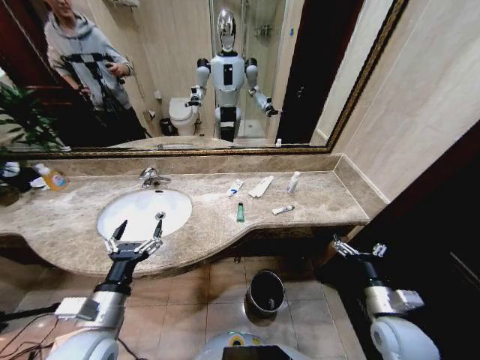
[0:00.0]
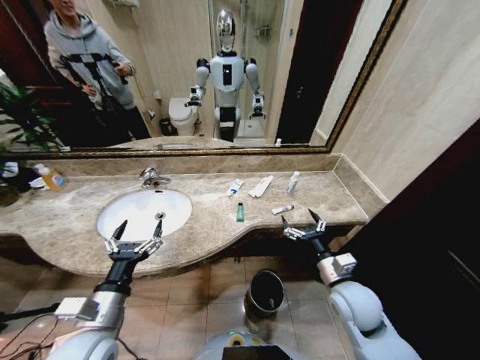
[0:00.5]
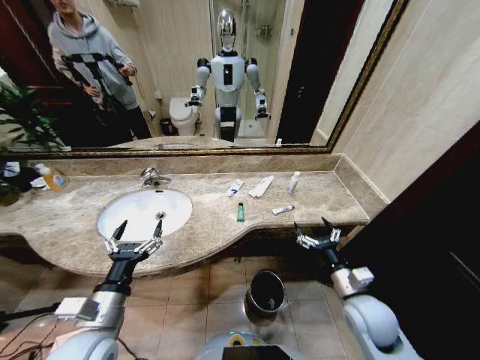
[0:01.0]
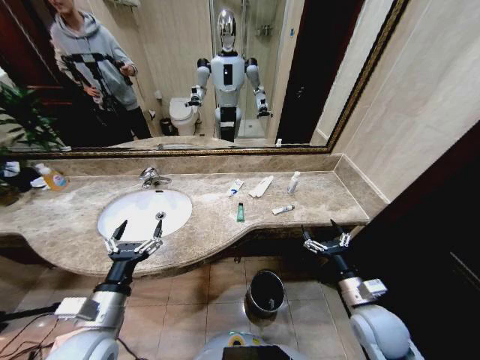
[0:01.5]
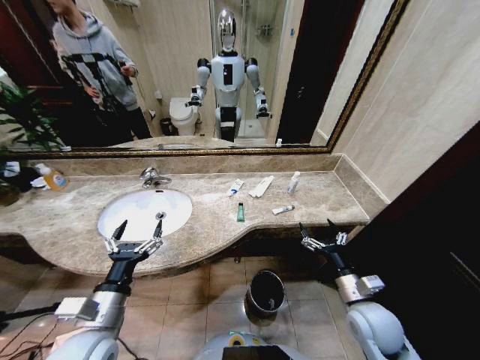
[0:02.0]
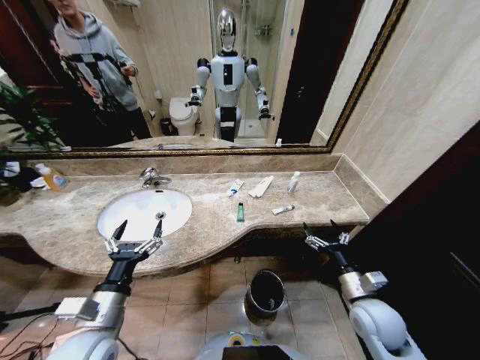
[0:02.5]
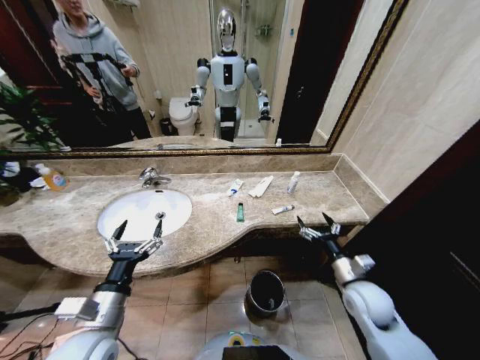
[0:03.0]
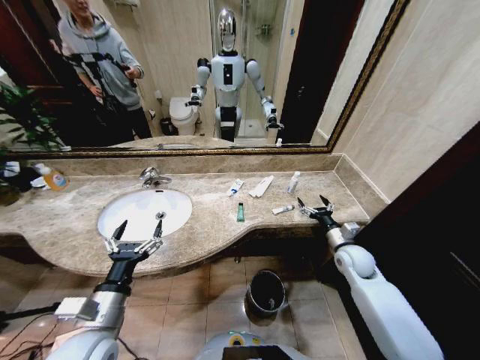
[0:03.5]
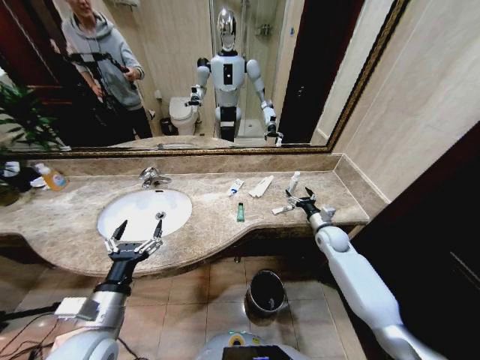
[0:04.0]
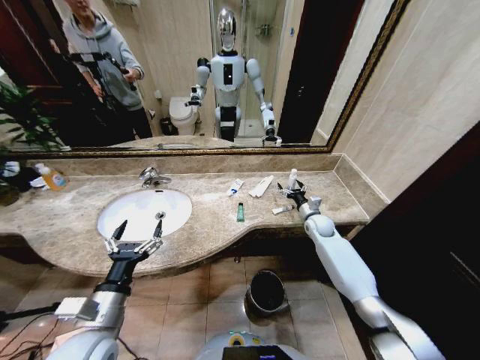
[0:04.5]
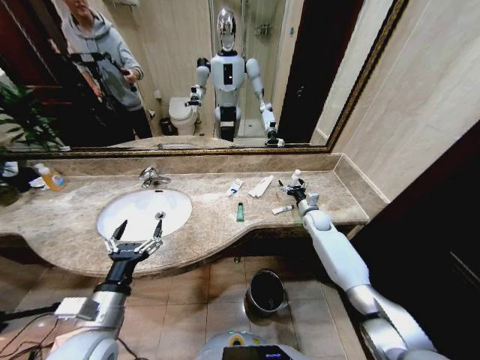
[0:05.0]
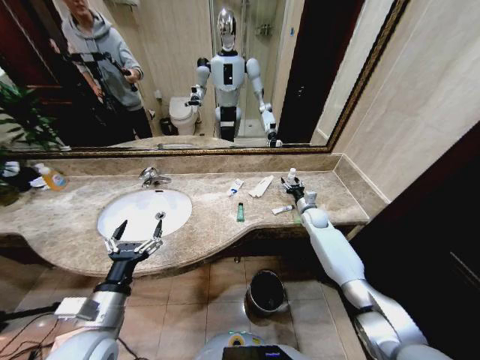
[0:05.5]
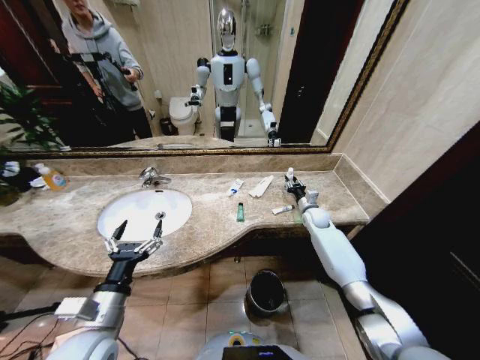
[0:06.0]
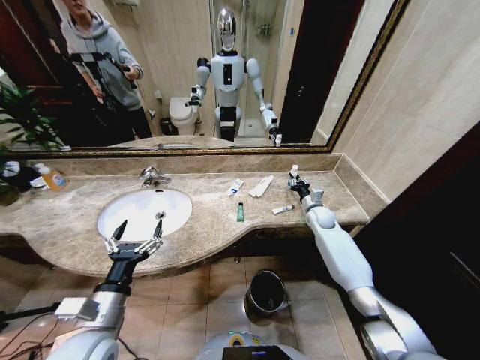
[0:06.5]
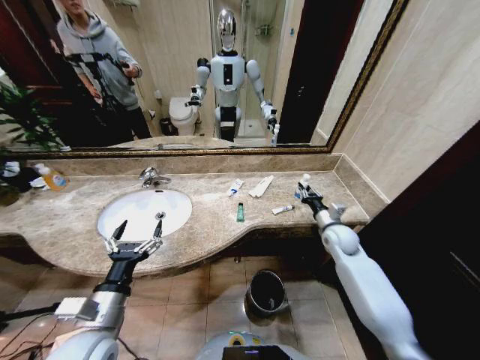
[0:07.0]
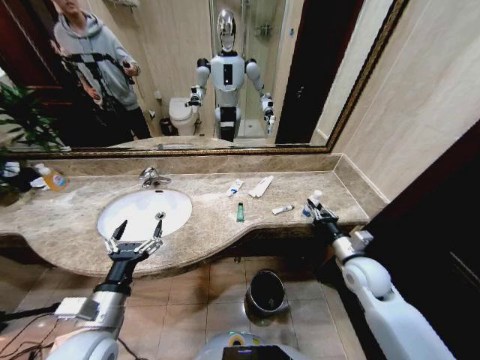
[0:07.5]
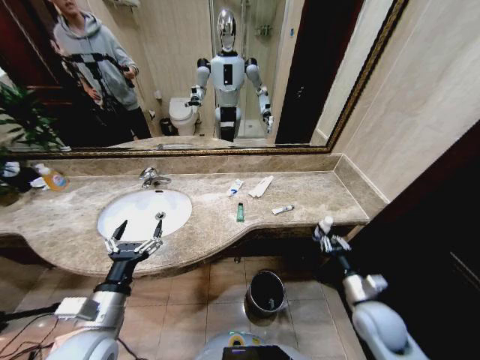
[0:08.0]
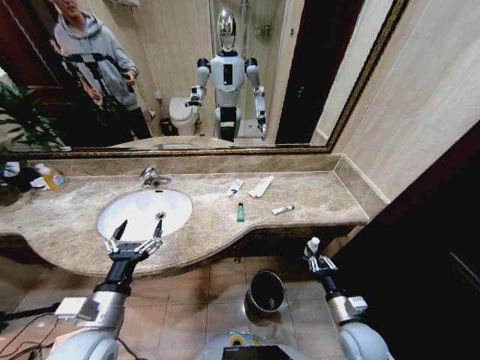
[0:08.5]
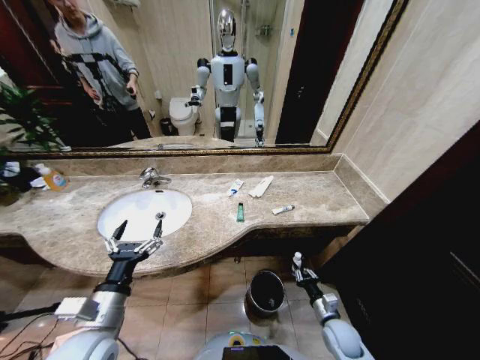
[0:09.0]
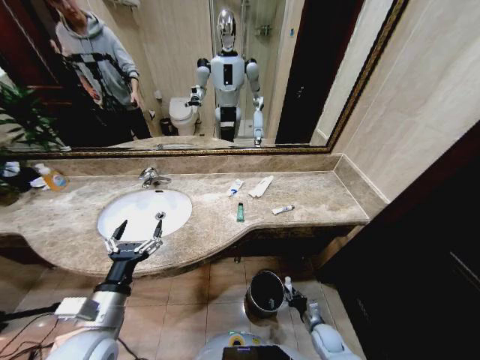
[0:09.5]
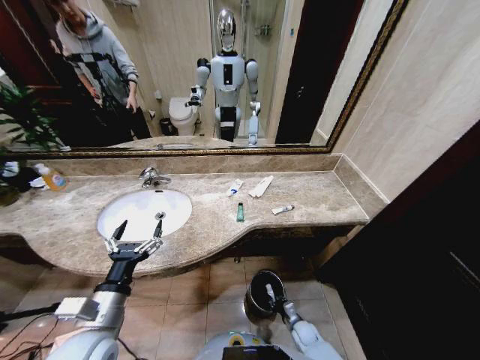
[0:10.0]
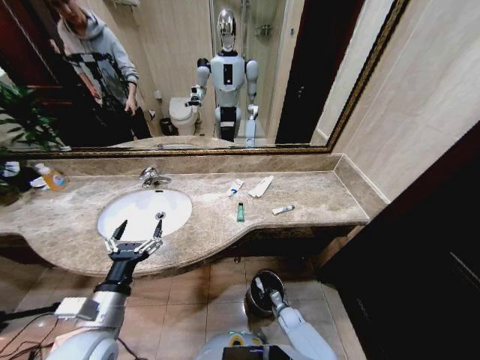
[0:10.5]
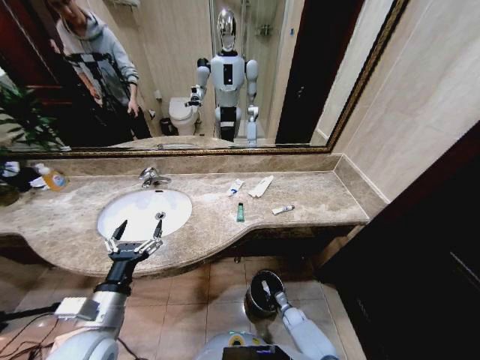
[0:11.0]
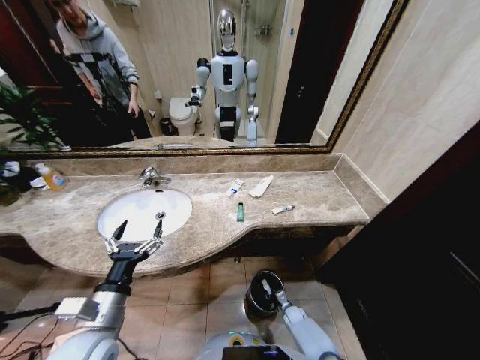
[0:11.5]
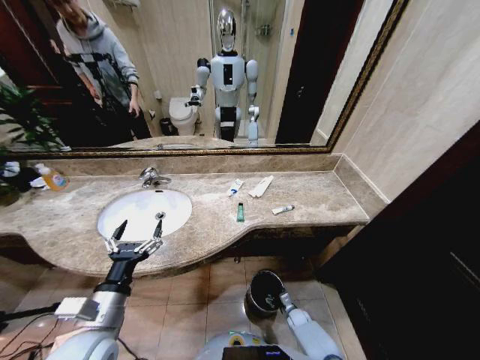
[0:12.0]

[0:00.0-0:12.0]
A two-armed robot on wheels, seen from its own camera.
Task of the whole recording: Pick up the trash from the sink and place it in the trash bin.
0:02.0 to 0:04.0: The right gripper heads forward, covering some 25 cm.
0:04.0 to 0:06.0: The right gripper travels forward by roughly 10 cm, and closes up.
0:06.0 to 0:08.0: The right gripper heads backward, covering approximately 35 cm.
0:08.0 to 0:10.0: The right gripper is displaced downward by some 30 cm.
0:10.0 to 0:12.0: The right gripper changes place by approximately 5 cm, and opens.

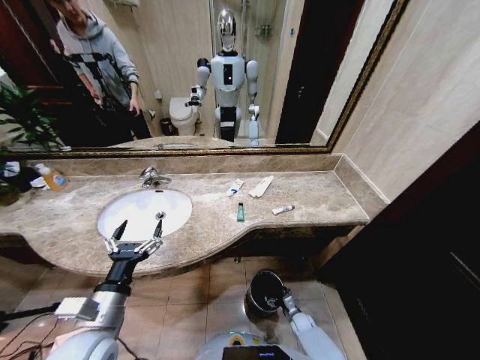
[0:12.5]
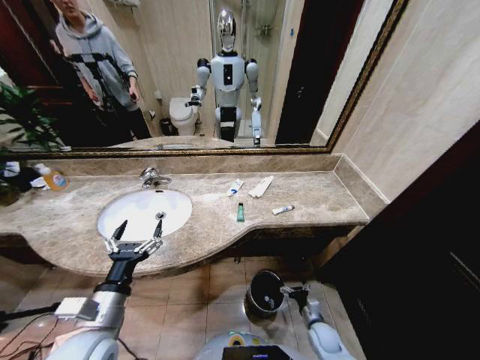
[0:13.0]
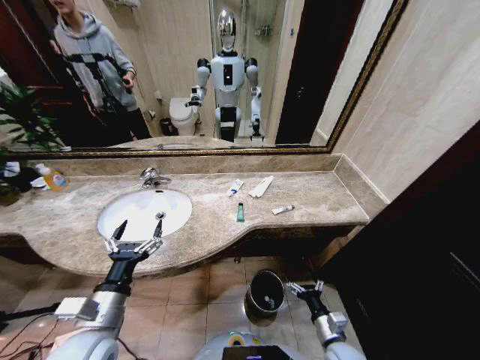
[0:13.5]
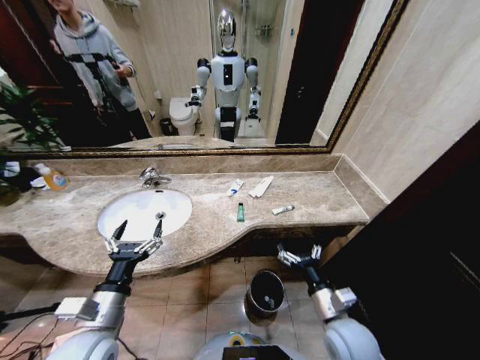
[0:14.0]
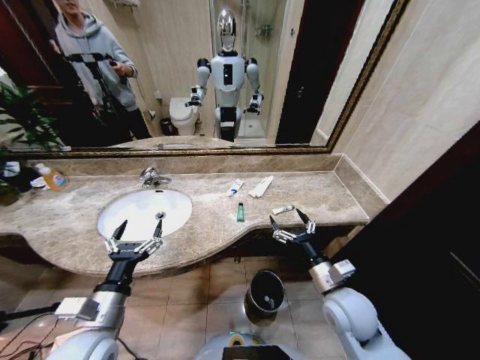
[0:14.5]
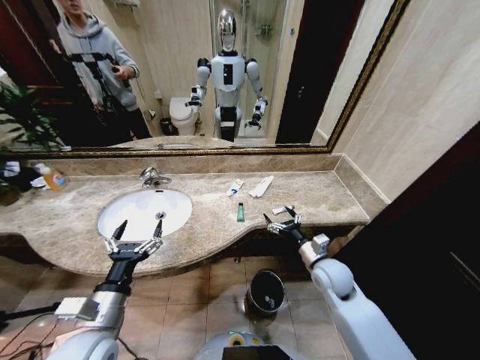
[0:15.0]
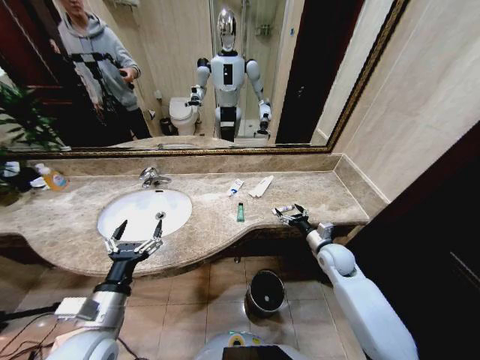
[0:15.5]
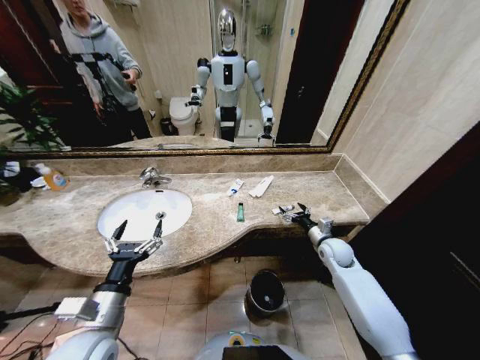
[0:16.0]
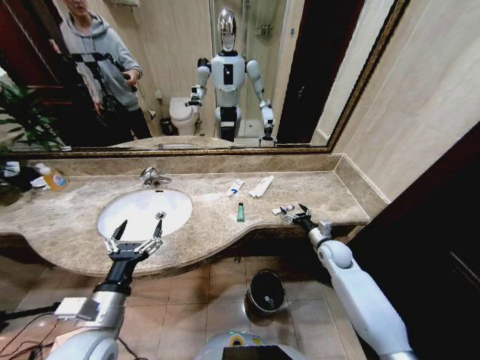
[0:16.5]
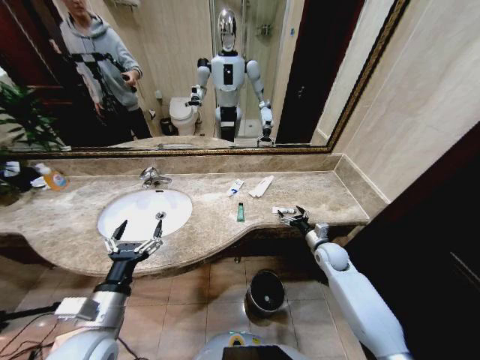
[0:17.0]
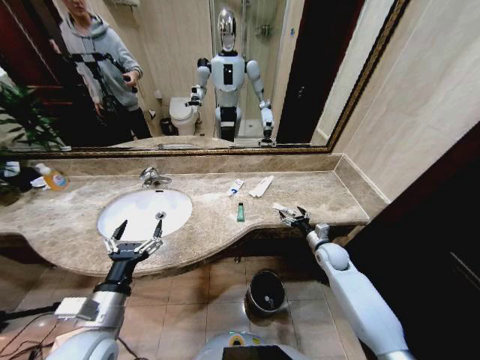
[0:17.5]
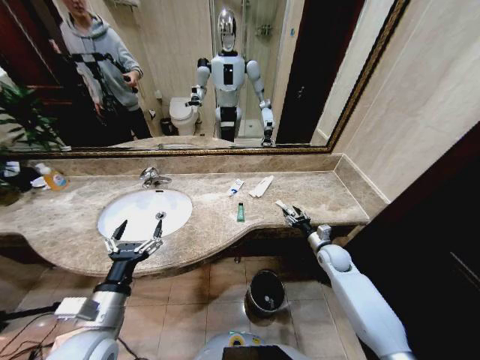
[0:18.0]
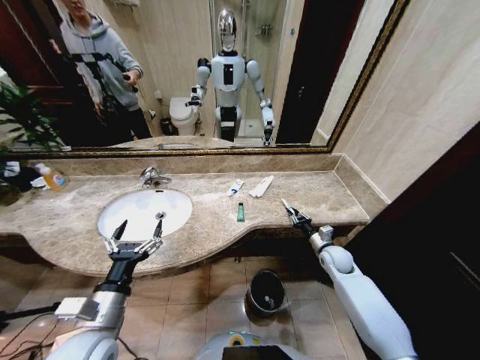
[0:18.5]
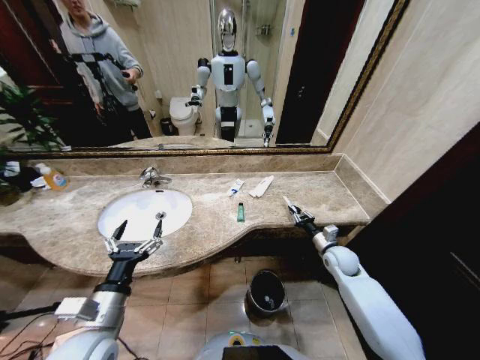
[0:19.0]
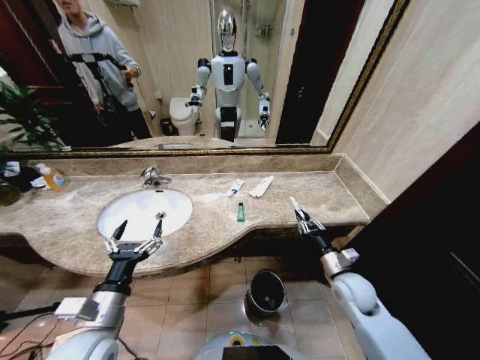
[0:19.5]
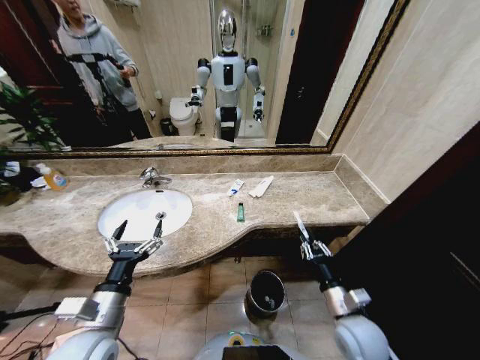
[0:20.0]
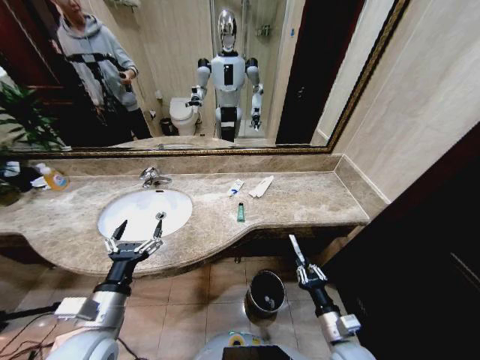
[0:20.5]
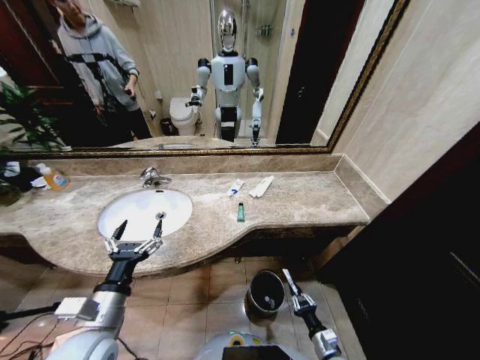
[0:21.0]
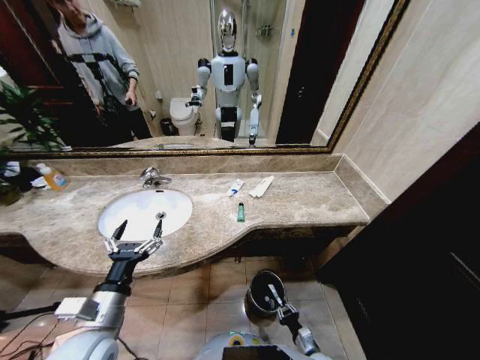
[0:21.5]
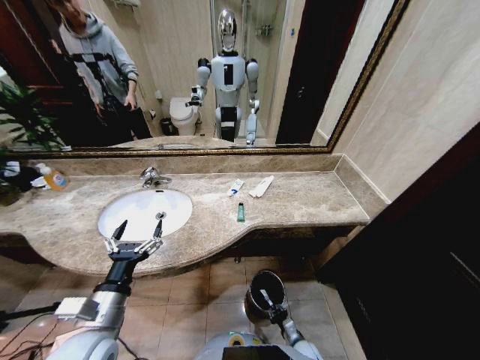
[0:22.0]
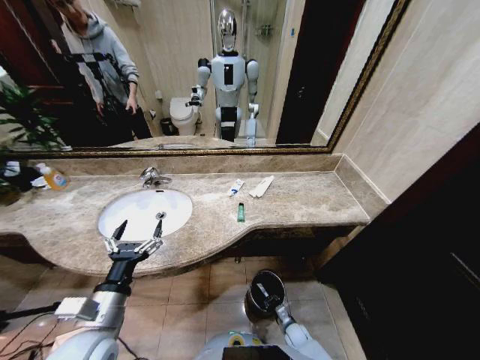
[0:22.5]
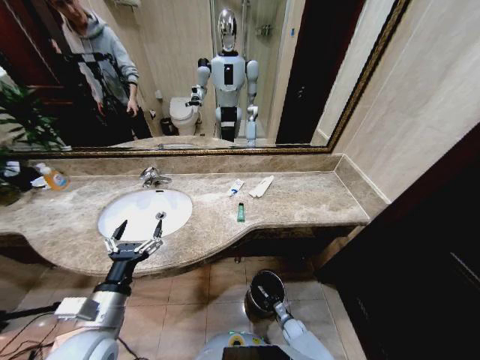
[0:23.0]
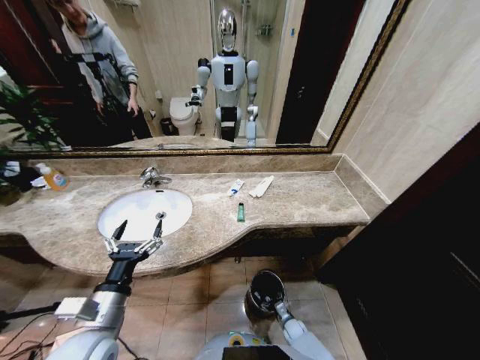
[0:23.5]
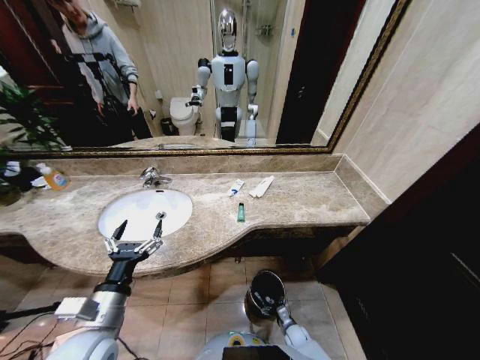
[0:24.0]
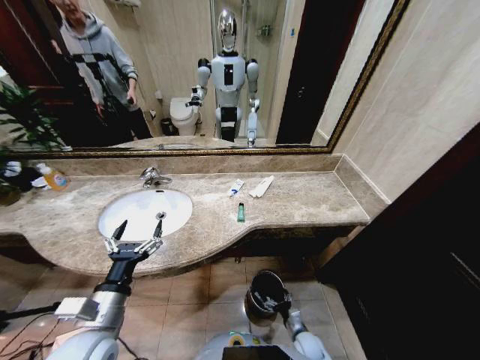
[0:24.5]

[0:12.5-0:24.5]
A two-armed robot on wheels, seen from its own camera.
Task of the whole recording: Pick up the trash from the sink and place it in the trash bin.
0:12.5 to 0:14.5: The right gripper shifts some 40 cm upward.
0:14.5 to 0:16.5: The right gripper heads forward, to the right and downward, covering approximately 25 cm.
0:16.5 to 0:18.5: The right gripper closes.
0:18.5 to 0:20.5: The right gripper goes approximately 25 cm backward.
0:20.5 to 0:22.5: The right gripper heads downward, covering roughly 30 cm.
0:22.5 to 0:24.5: The right gripper travels upward by roughly 5 cm, and opens.

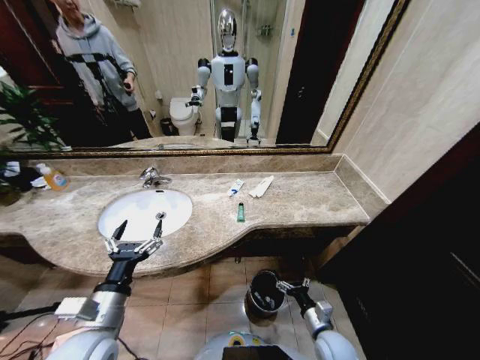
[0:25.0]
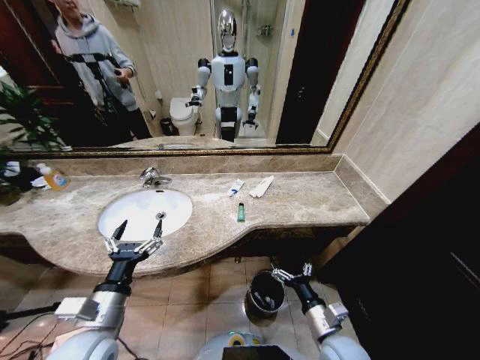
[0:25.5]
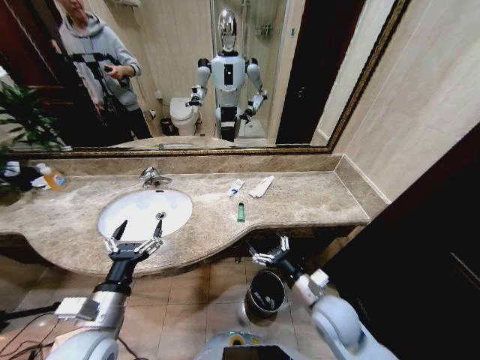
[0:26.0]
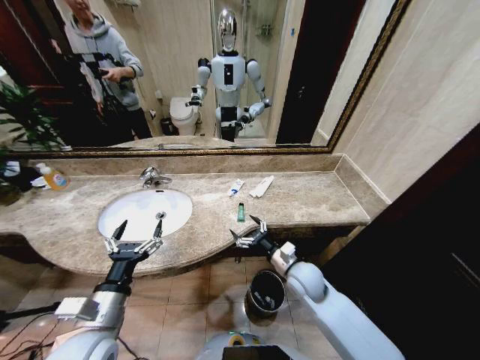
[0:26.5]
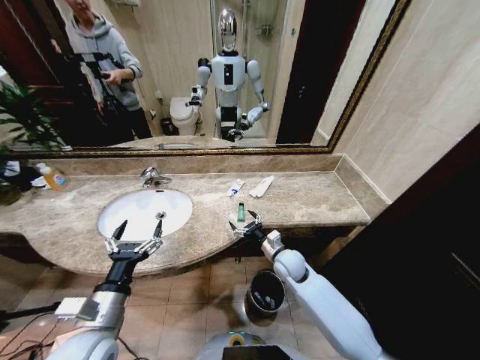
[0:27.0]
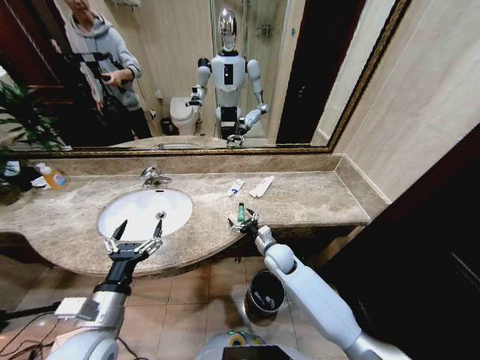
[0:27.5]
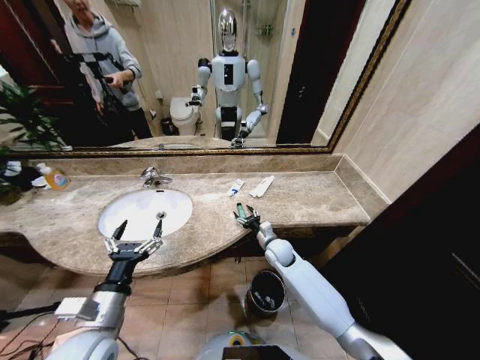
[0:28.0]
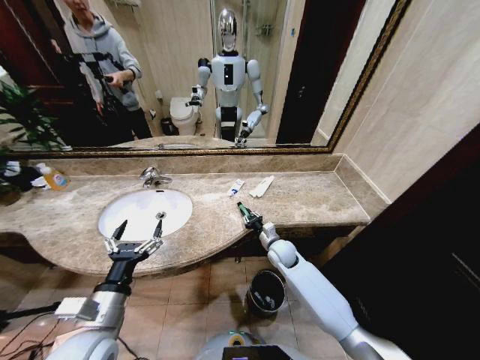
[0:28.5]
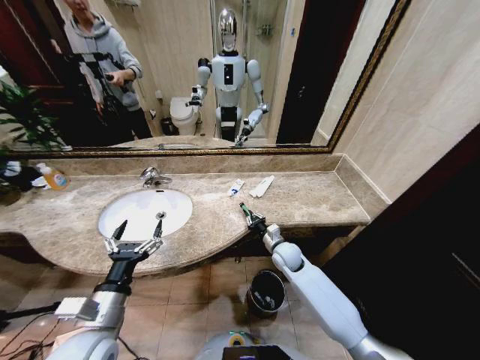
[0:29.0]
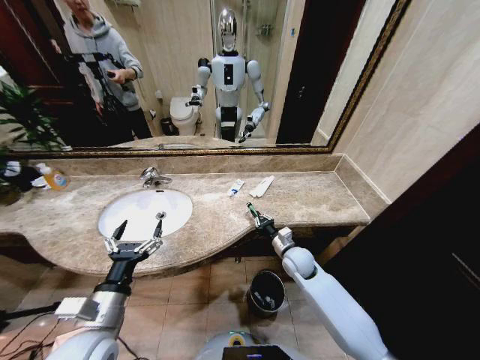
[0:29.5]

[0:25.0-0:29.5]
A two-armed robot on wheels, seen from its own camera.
Task of the whole recording: Pick up the trash from the sink and place it in the trash bin.
0:25.0 to 0:27.0: The right gripper travels forward, upward and to the left by about 25 cm.
0:27.0 to 0:29.5: The right gripper closes up.
